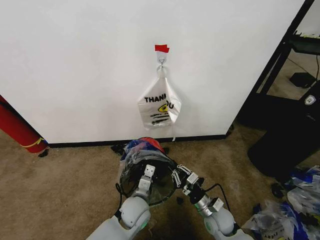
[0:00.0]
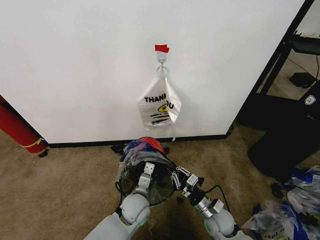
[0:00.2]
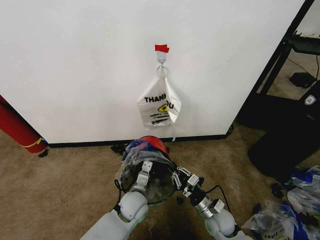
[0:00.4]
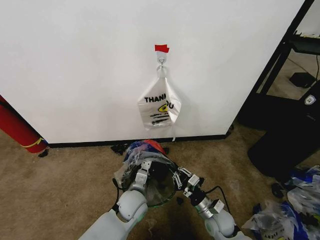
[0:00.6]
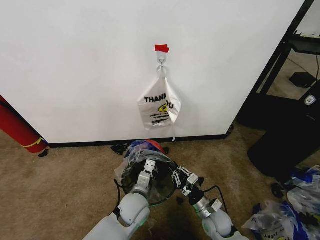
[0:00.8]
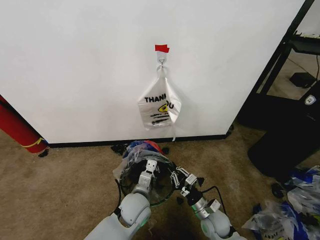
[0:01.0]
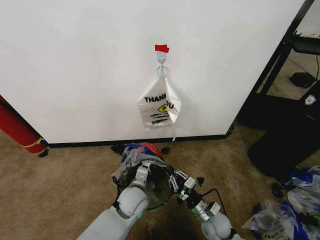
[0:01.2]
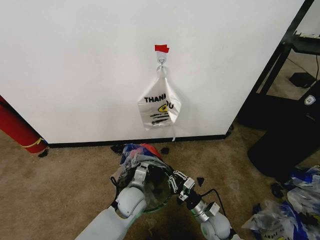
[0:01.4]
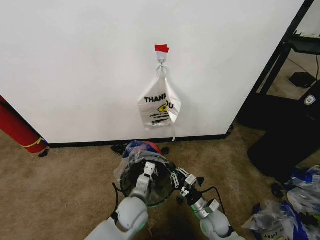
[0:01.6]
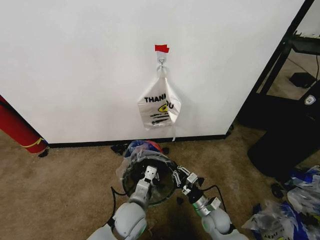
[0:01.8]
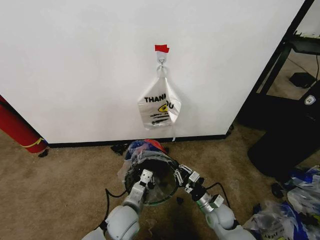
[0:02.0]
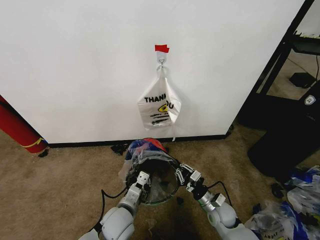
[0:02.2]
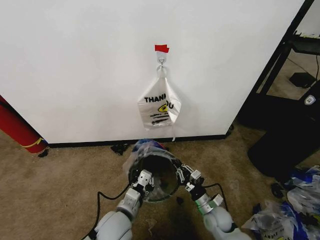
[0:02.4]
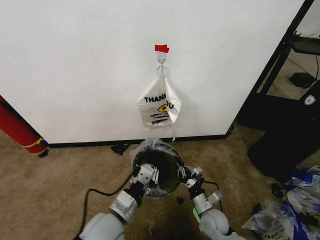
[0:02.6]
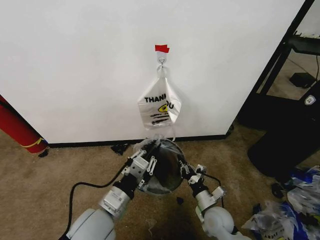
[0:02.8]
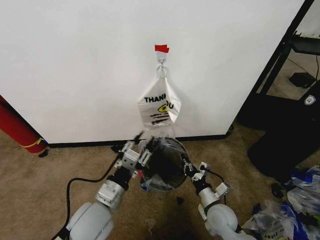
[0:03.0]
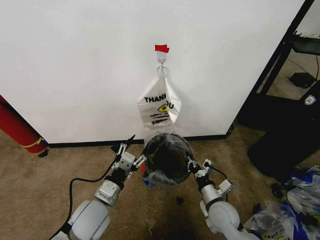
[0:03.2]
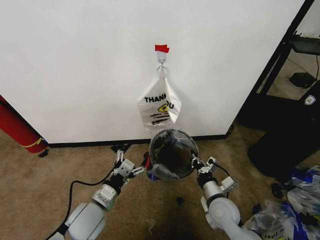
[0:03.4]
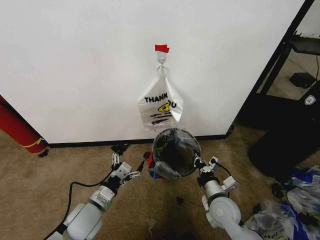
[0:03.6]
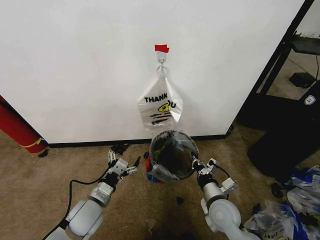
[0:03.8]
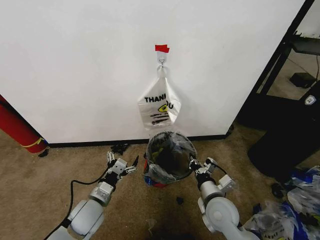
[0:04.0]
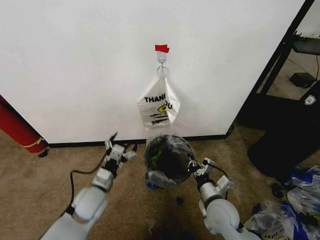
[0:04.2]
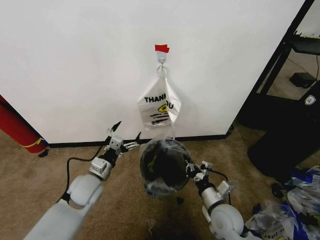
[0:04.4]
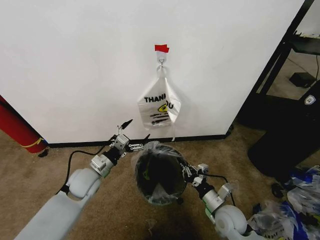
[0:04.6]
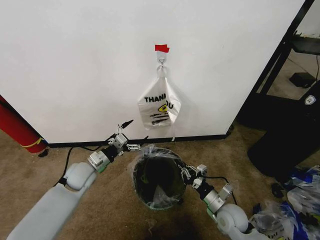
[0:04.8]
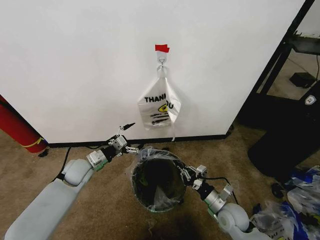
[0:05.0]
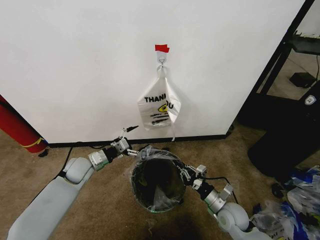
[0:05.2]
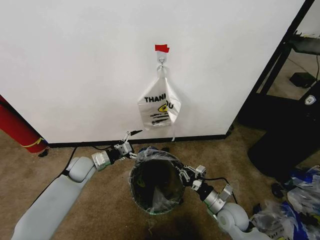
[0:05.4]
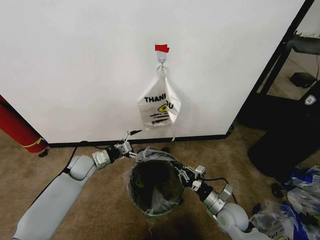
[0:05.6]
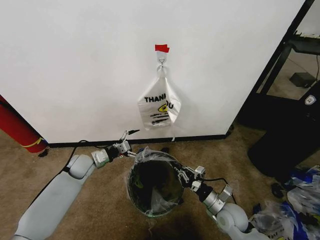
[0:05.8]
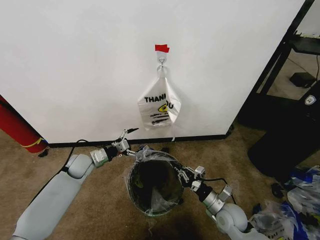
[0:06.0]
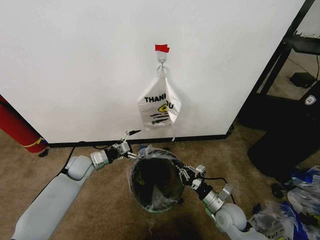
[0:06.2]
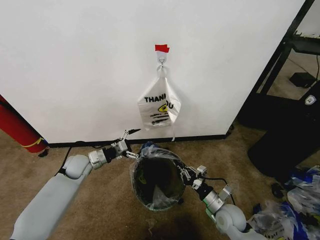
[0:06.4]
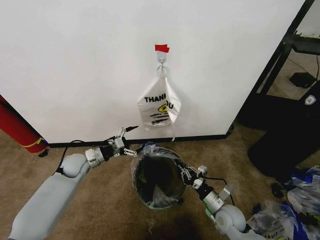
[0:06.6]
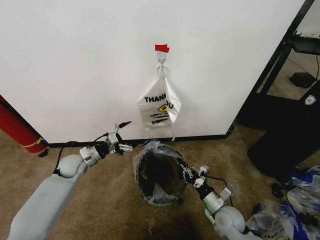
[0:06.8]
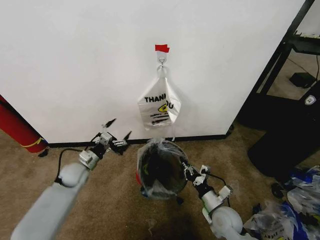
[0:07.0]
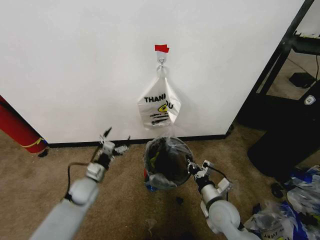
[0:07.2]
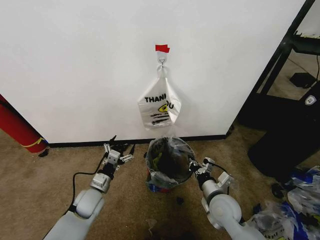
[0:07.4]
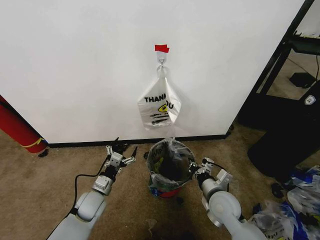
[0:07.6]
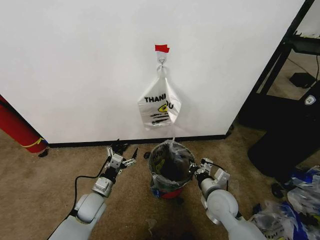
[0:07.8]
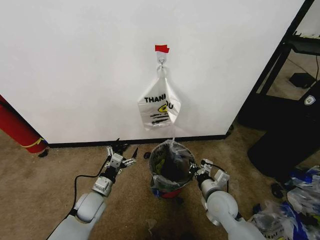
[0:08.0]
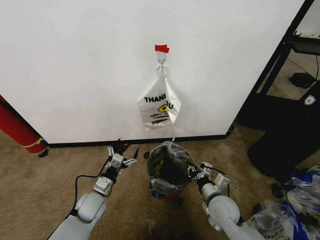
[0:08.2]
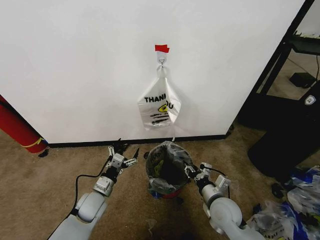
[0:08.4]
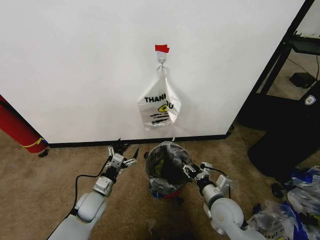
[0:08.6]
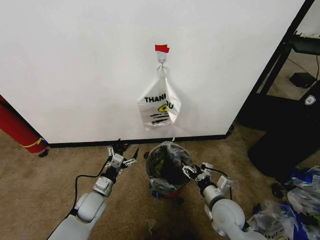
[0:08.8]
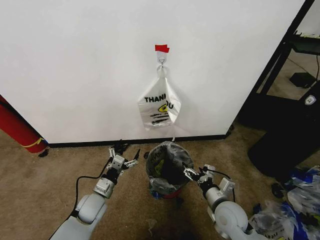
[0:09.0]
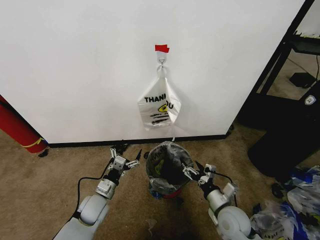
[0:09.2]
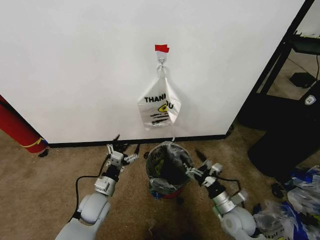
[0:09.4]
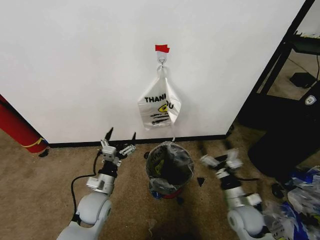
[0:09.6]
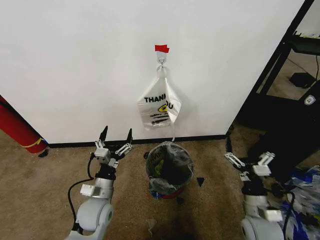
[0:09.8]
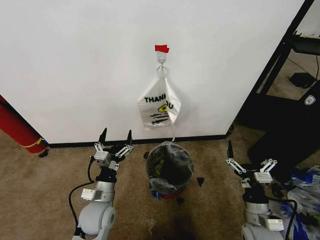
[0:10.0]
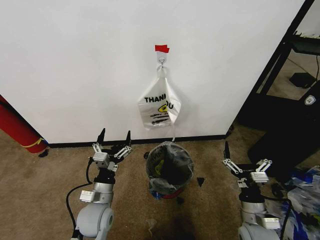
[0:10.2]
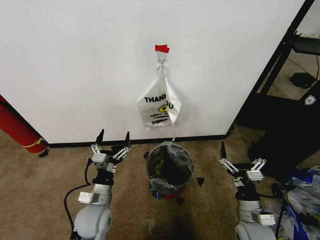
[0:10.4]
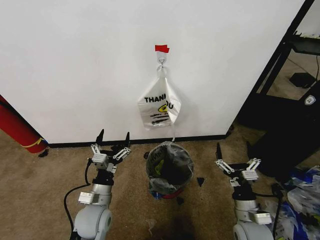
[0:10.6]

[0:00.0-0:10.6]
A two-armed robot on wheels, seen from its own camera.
Task of the whole recording: Pick up the garbage bag from the wall and place it over the trash bin.
0:00.0 to 0:01.6: The grippers stay close to where they were, moving slightly.
0:01.6 to 0:03.0: The left gripper moves upward, to the left and backward, approximately 15 cm, and opens, while the right gripper goes roughly 5 cm upward.
0:03.0 to 0:04.6: The left gripper moves forward and to the left, roughly 15 cm, and opens its fingers.
0:04.6 to 0:06.0: The left gripper travels forward and to the left by about 10 cm.
0:06.0 to 0:07.6: The right gripper moves upward, some 5 cm. The left gripper is displaced backward, to the right and downward by some 15 cm.
0:07.6 to 0:09.0: The right gripper opens its fingers.
0:09.0 to 0:10.6: The left gripper heads upward and backward, covering about 10 cm. Meanwhile the right gripper moves to the right, about 5 cm.

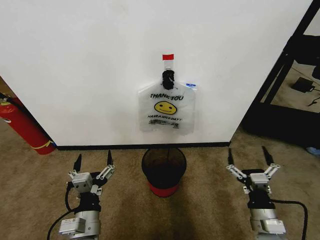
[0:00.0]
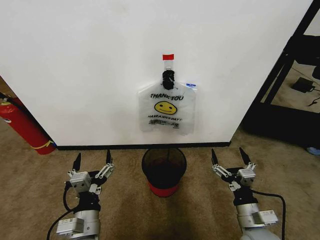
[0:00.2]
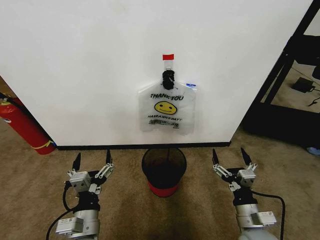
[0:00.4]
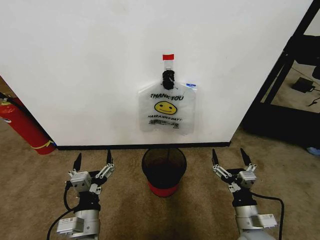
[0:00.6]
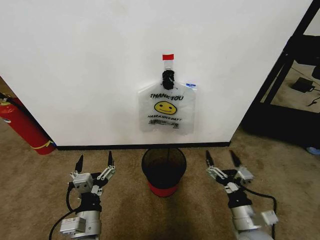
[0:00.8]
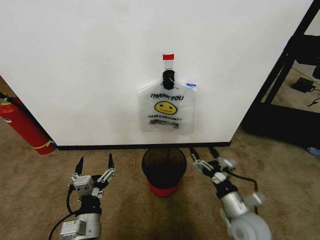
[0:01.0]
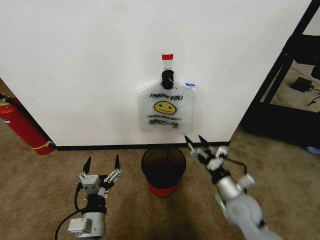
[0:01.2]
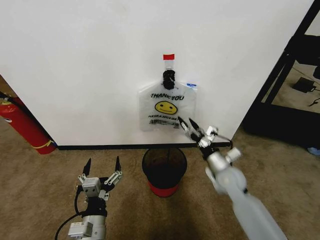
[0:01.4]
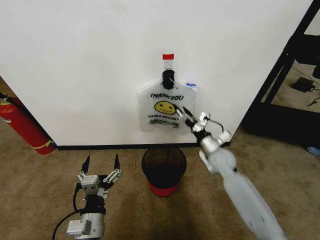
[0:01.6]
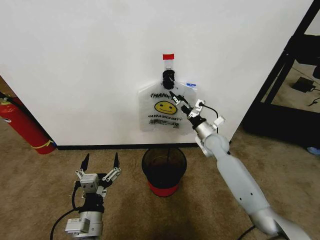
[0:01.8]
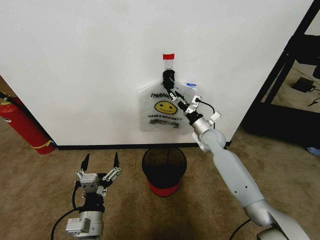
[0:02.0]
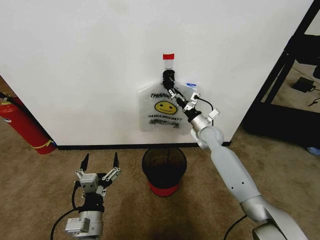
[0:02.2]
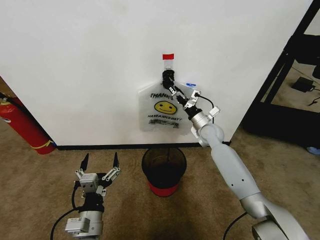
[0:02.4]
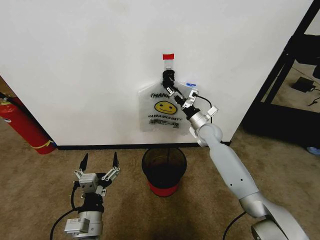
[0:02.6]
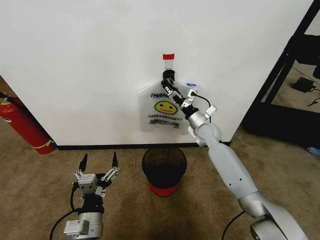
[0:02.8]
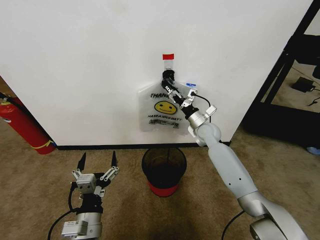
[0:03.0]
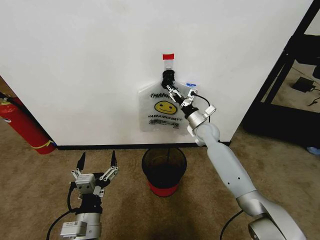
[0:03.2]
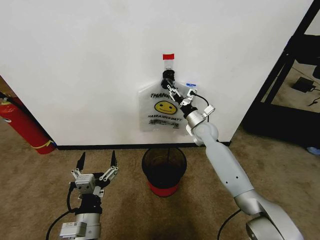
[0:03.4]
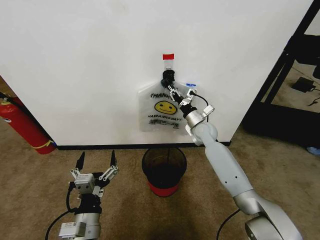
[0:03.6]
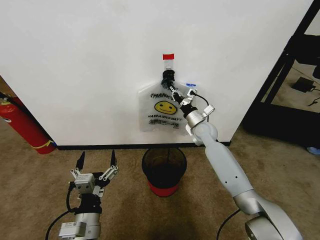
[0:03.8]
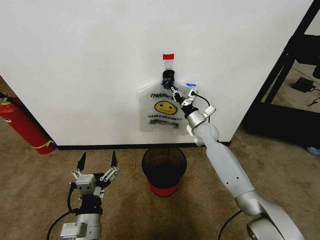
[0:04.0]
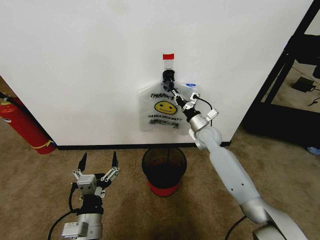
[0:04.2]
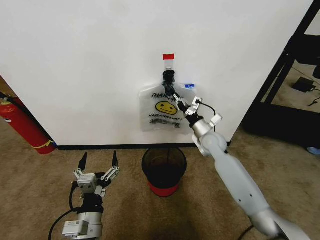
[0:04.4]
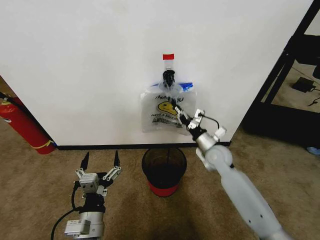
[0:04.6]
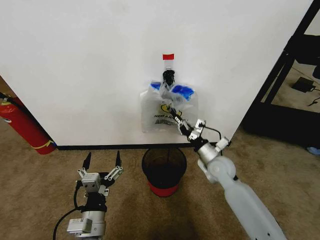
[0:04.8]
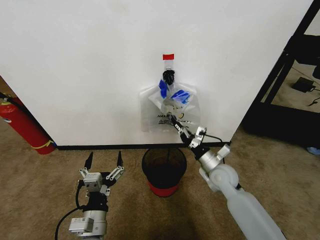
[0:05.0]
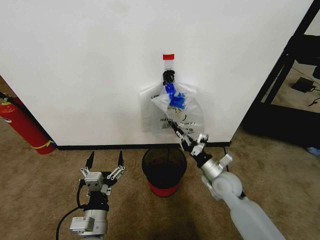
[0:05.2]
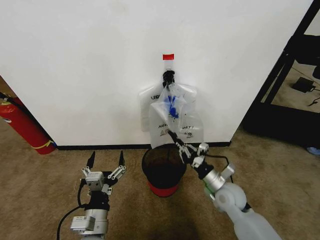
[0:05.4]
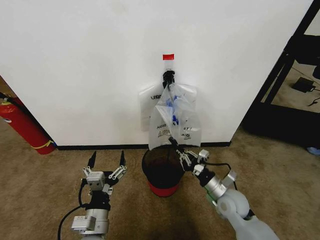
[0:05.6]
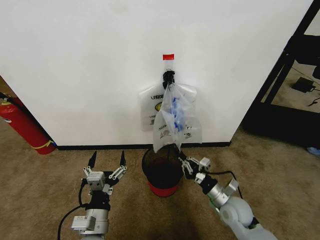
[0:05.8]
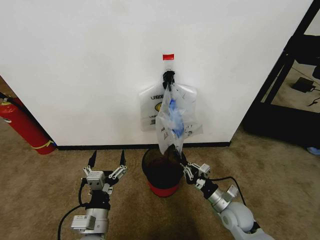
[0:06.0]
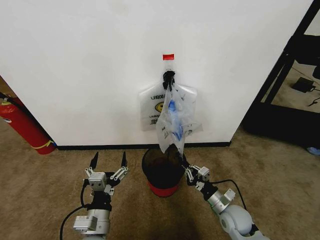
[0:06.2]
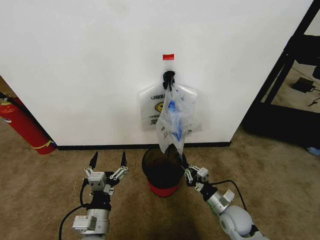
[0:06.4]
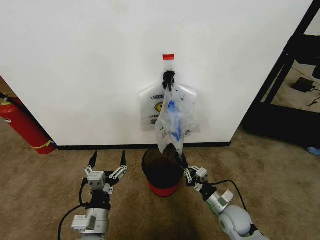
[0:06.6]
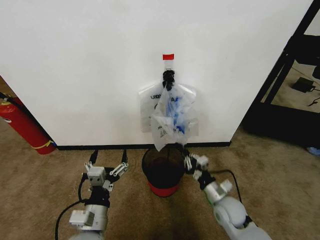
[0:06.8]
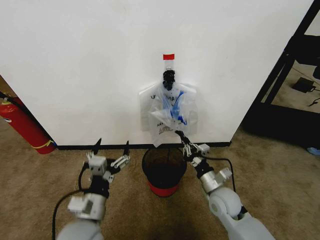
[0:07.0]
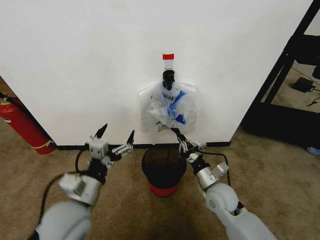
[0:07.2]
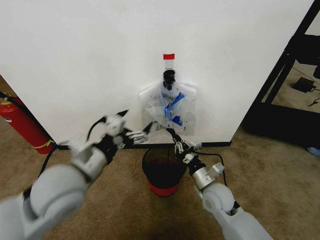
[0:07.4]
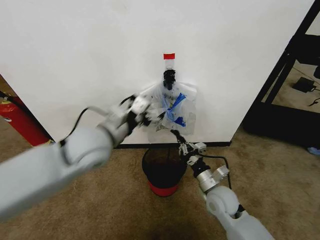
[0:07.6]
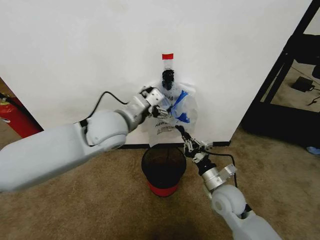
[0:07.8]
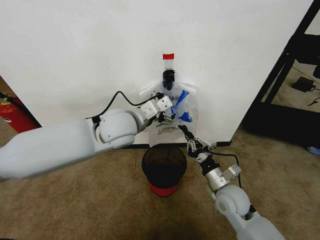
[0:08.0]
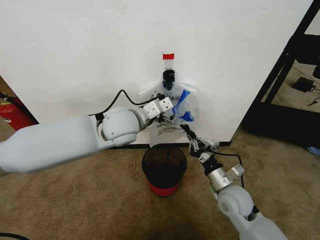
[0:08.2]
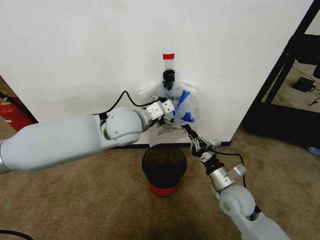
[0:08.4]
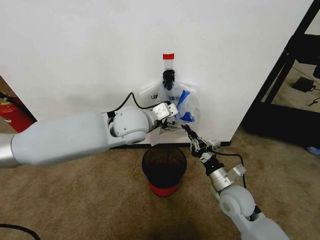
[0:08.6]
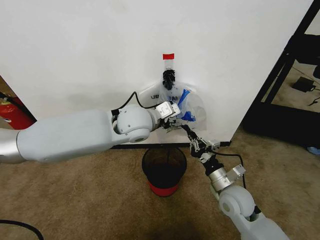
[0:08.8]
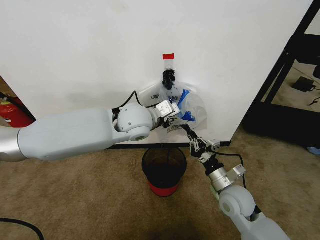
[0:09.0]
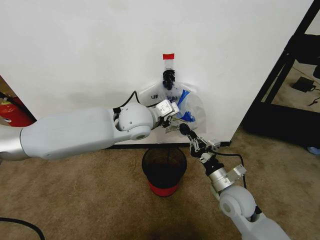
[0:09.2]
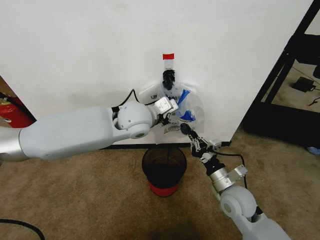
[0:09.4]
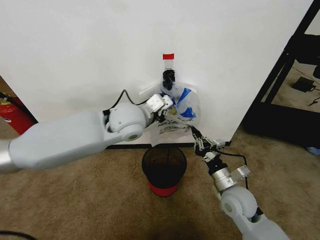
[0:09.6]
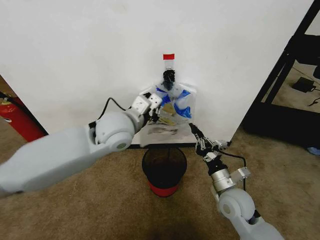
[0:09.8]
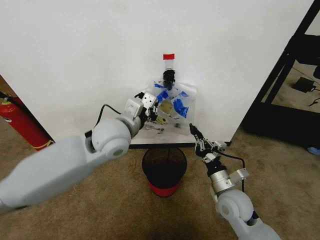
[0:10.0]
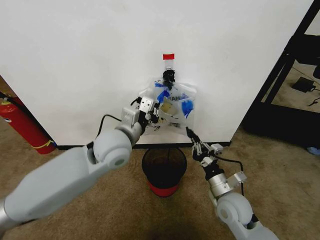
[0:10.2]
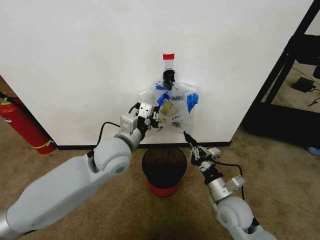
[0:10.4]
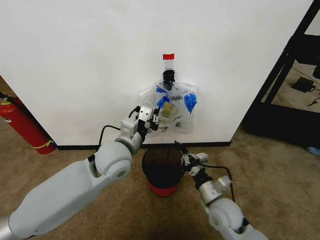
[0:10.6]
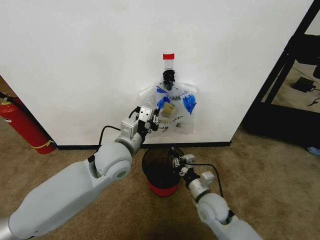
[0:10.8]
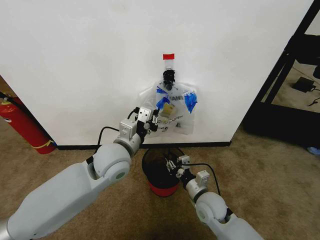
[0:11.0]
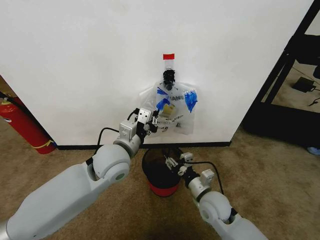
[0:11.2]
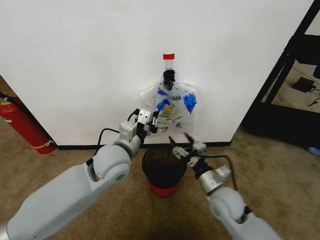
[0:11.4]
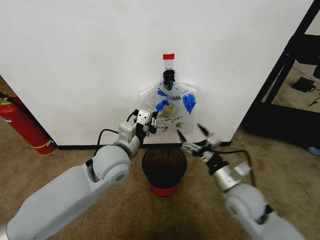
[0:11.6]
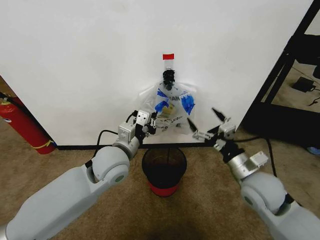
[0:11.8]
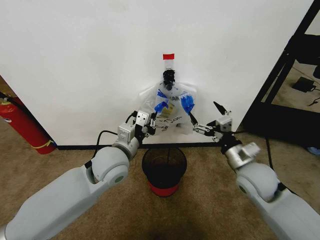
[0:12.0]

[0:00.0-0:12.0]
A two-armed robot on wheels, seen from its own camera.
Task of the whole recording: Pick up the garbage bag from the wall and place it over the trash bin.
0:01.6 to 0:03.0: The right gripper moves forward, roughly 10 cm.
0:03.0 to 0:04.4: The right gripper is displaced backward by roughly 5 cm, and closes up.
0:04.4 to 0:06.0: The right gripper heads backward and downward, covering roughly 25 cm.
0:06.0 to 0:07.6: The left gripper shifts about 25 cm upward and forward, while the right gripper goes roughly 10 cm to the left and upward.
0:07.6 to 0:09.0: The left gripper shifts approximately 15 cm to the right and forward, and closes its fingers.
0:09.0 to 0:10.4: The left gripper is displaced backward, downward and to the left by roughly 10 cm.
0:10.4 to 0:12.0: The right gripper goes some 10 cm upward and forward, and opens up.
